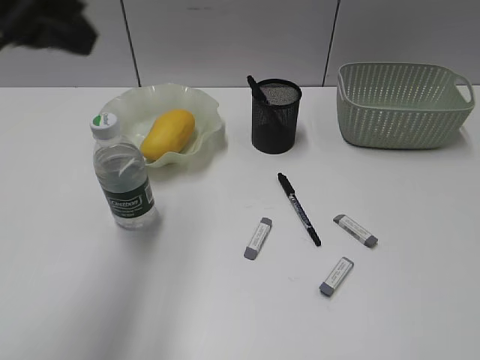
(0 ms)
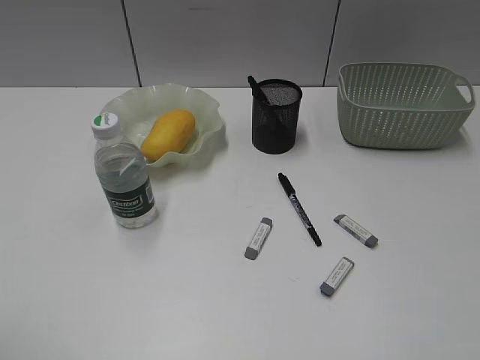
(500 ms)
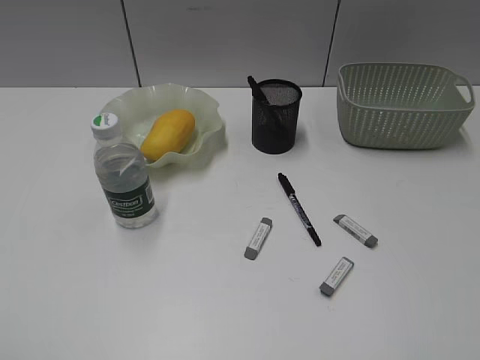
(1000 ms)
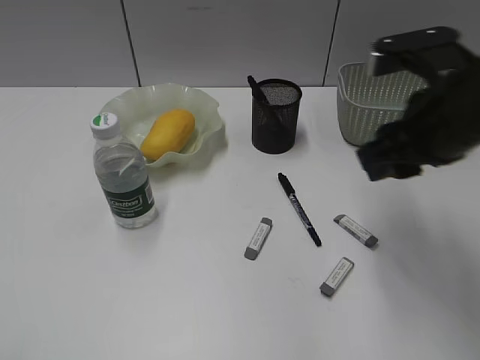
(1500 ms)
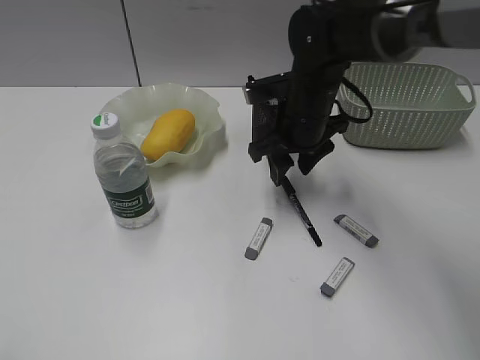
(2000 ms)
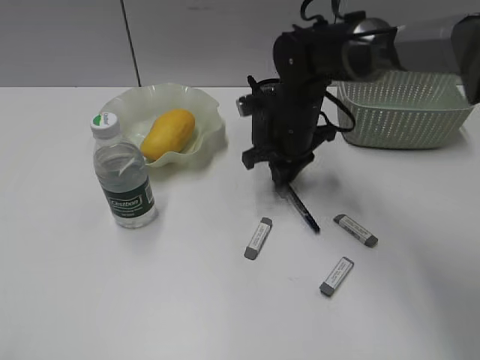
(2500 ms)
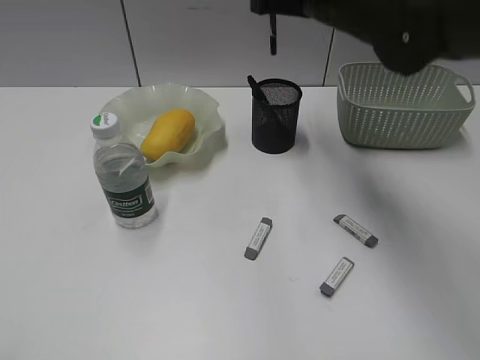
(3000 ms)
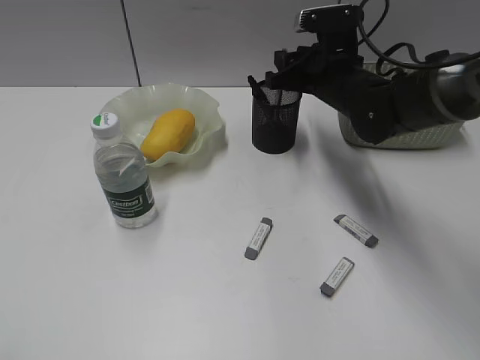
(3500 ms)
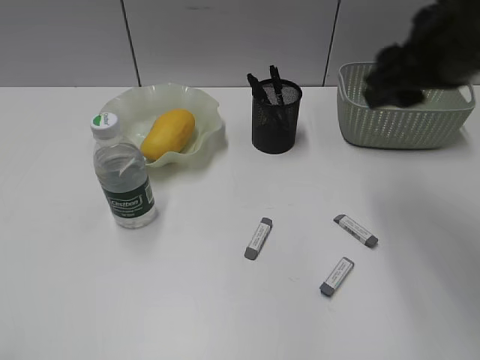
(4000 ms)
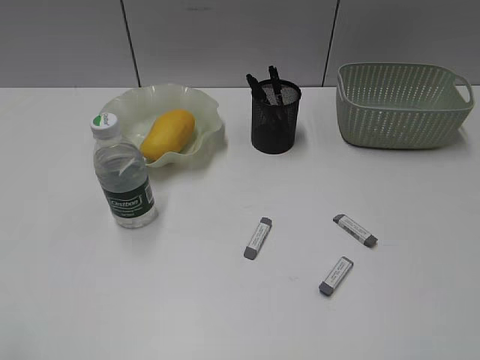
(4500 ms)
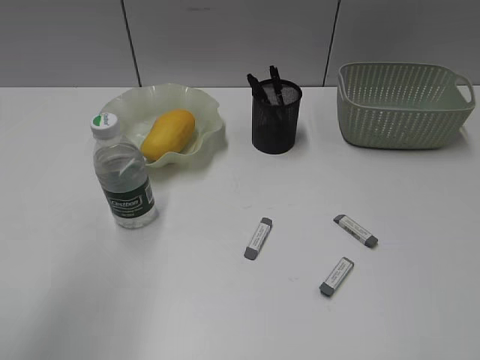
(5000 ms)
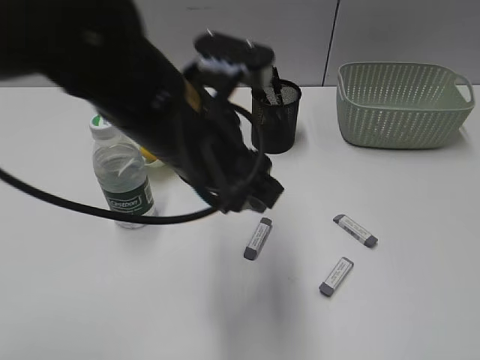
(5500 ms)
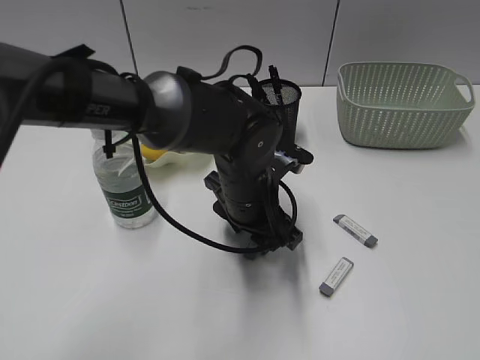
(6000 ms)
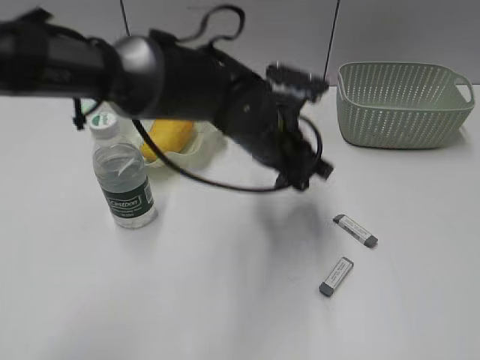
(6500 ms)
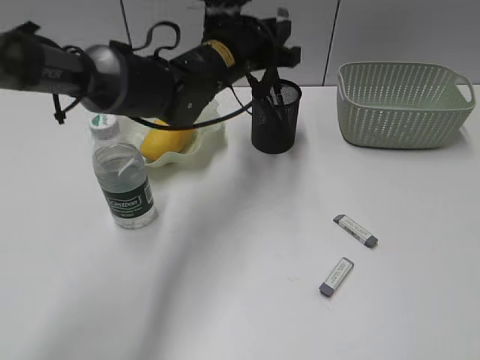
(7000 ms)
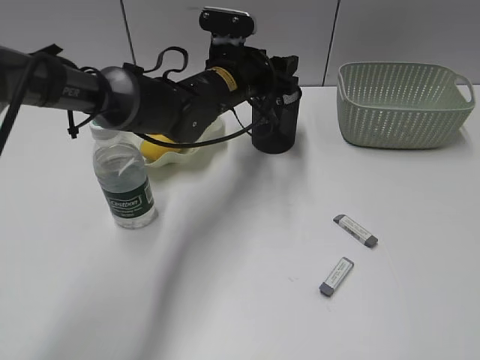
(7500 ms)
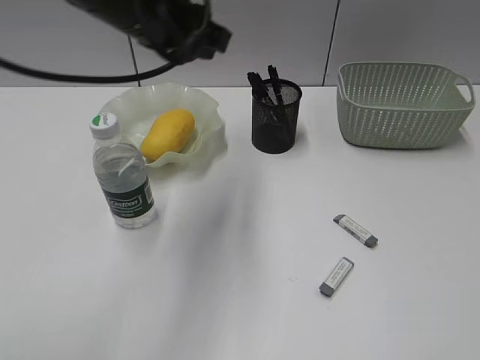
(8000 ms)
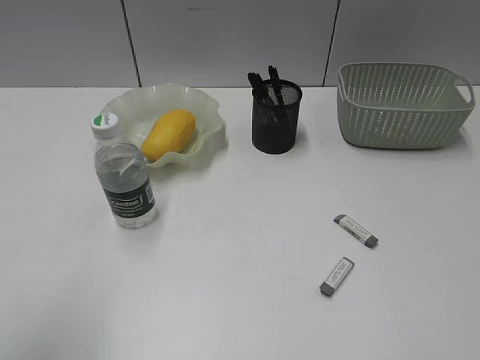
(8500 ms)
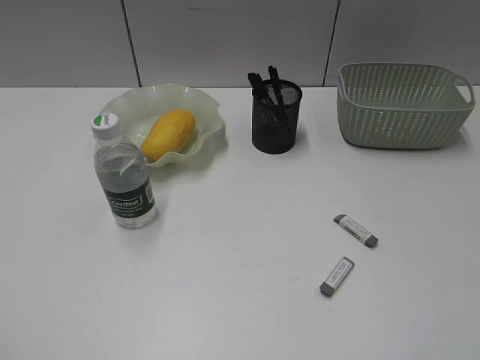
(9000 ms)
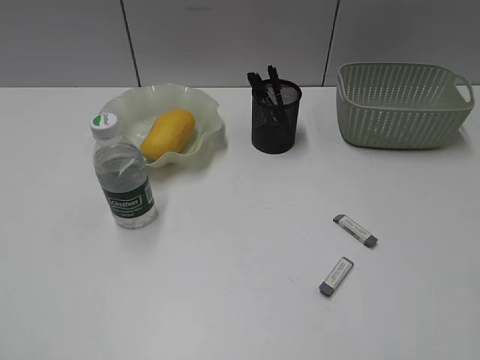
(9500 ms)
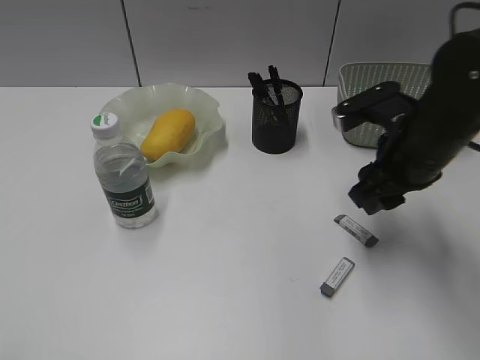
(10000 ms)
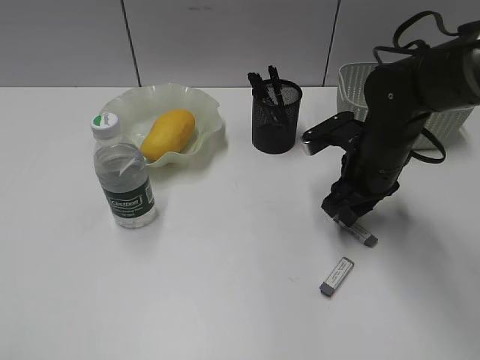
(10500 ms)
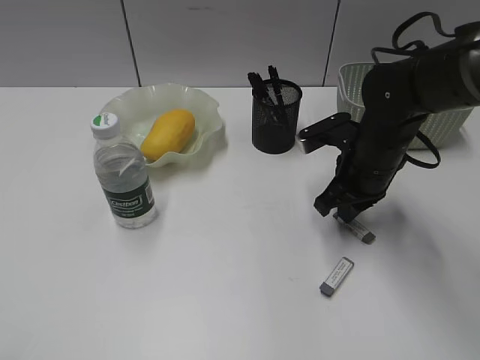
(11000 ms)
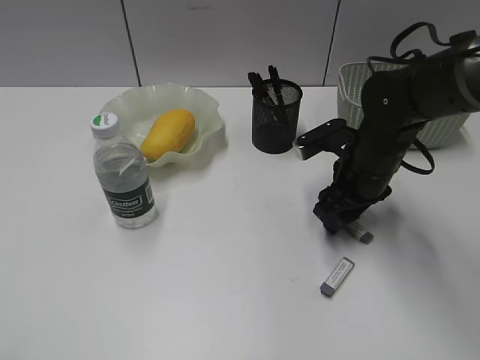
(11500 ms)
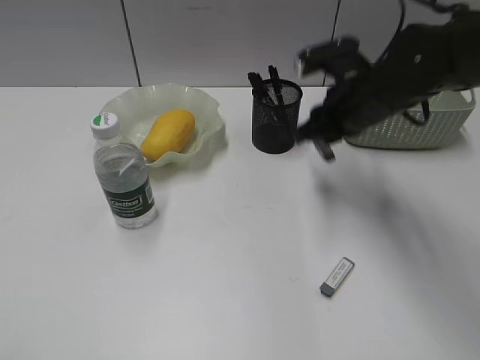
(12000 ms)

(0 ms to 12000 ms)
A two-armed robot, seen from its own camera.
Step, 0 ms - 2000 ms: Grasp the black pen with right gripper.
Step, 2500 ms - 3500 ms: Place the black pen in pen holder with right gripper.
Step, 4000 ms - 6000 ms: Grasp the eraser with left gripper.
Step, 6500 ms - 7500 ms: Place the eraser in pen holder with left gripper.
Step, 8000 ms - 11500 ms: Grasp the eraser with right gripper.
0 ms - 2000 ms: The left gripper goes approximately 25 cm backward and to the left, and opens its fingers, while the right gripper travels forward and to the left by roughly 50 cm.
2000 ms - 4000 ms: The right gripper swings up and down, approximately 20 cm each way, with 2 reversals, and closes and opens again.
4000 ms - 6000 ms: The right gripper moves backward and to the right, about 30 cm, while the left gripper goes roughly 50 cm to the right, forward and downward.
6000 ms - 8000 ms: The left gripper moves upward and to the left, about 20 cm.
8000 ms - 10000 ms: The right gripper moves forward and to the left, approximately 35 cm. The left gripper travels backward and to the left by about 40 cm, and opens.
10000 ms - 12000 ms: The right gripper goes about 5 cm forward, goes downward and returns, approximately 5 cm each way, and closes up.

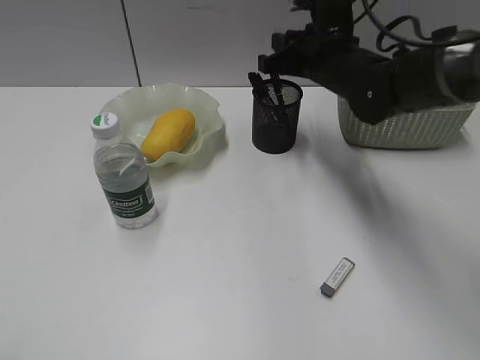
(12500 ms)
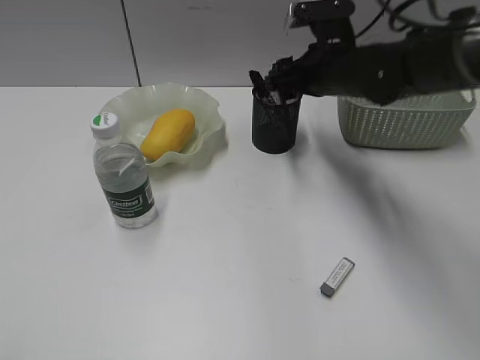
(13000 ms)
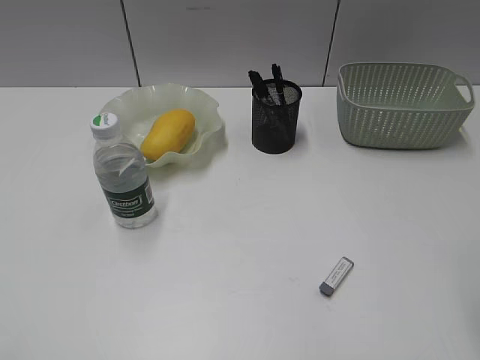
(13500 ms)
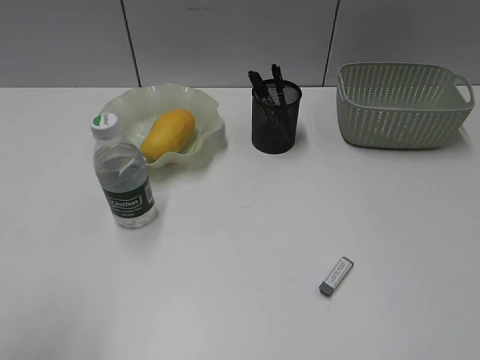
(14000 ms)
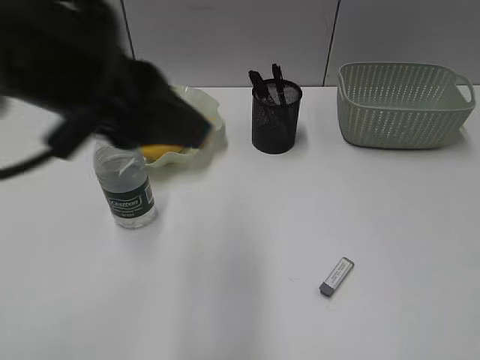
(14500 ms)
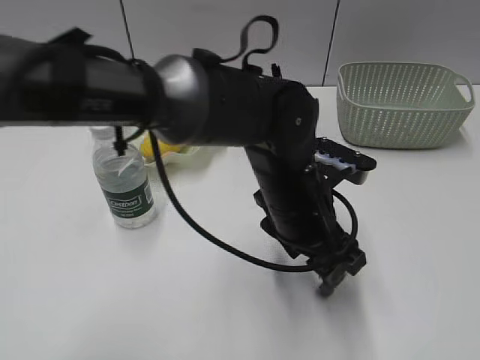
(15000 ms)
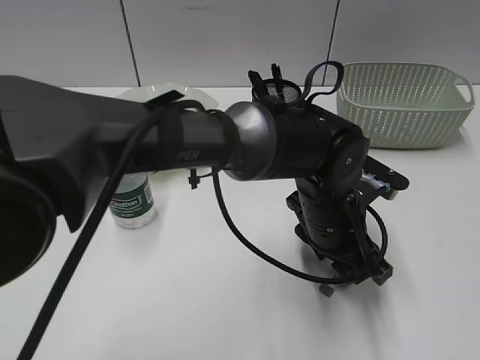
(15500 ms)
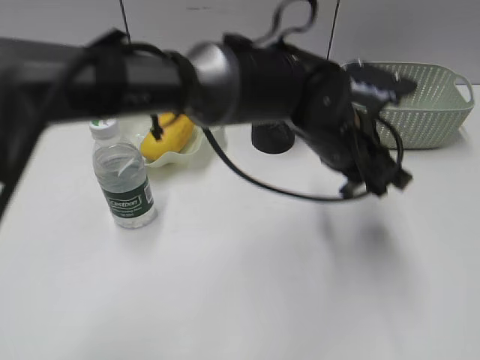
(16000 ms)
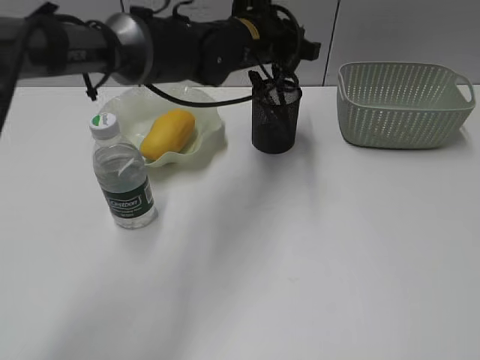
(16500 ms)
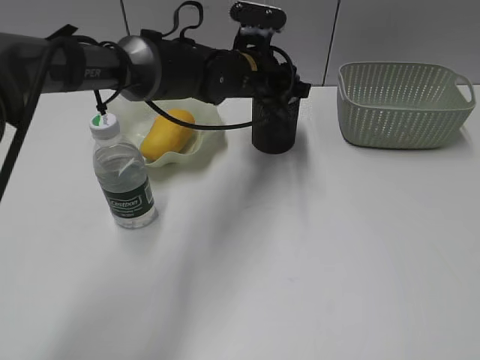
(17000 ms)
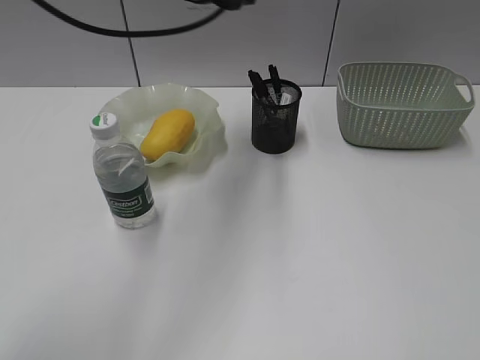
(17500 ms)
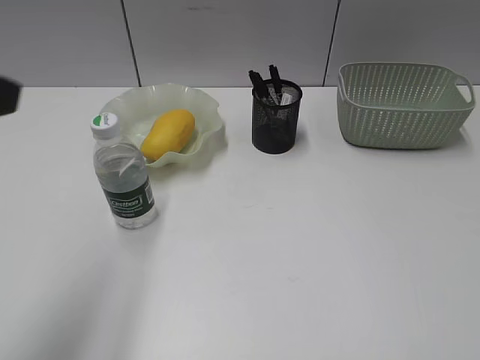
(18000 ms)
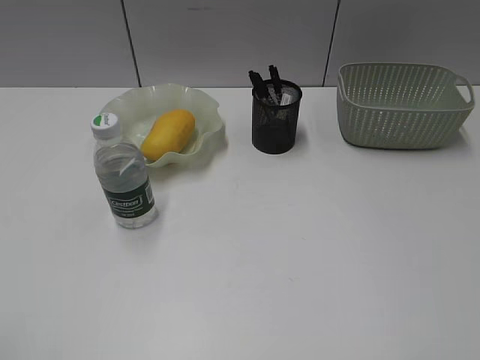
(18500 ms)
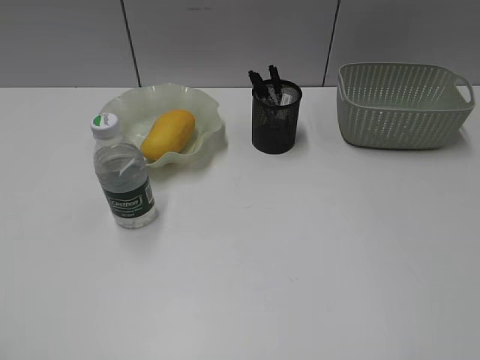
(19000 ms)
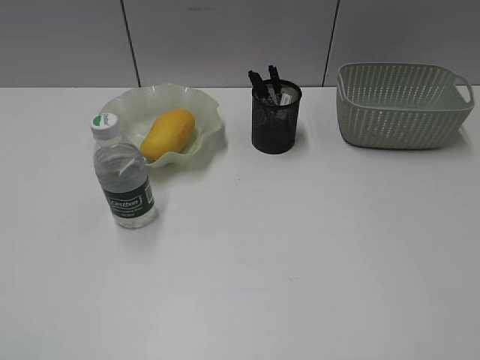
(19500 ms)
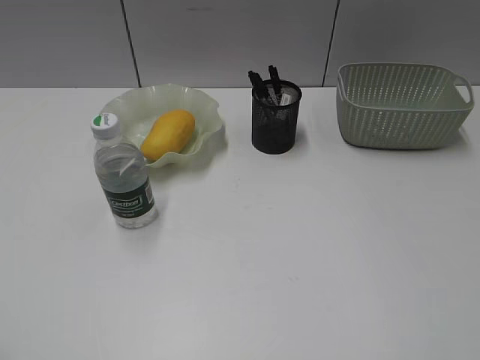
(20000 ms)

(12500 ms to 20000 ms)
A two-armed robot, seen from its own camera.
Step, 13500 ms - 15500 ms: Grasp the eraser with left gripper.
Step, 16000 ms - 17000 ms: Place the eraser in pen holder with left gripper.
12500 ms - 14500 ms: The right gripper moves backward and to the right, approximately 50 cm, and opens up; the left gripper goes approximately 30 cm to the right and forward.
14500 ms - 16500 ms: The left gripper heads forward, to the right and downward, covering about 30 cm, and closes its fingers.
16500 ms - 18000 ms: The left gripper moves backward, to the left and upward, some 40 cm, and opens up.
18000 ms - 20000 ms: The left gripper goes some 20 cm backward and to the left.
